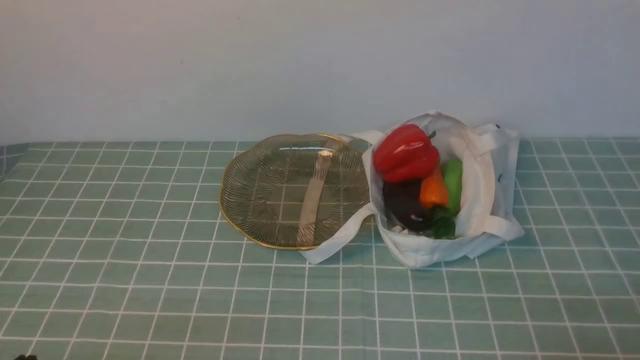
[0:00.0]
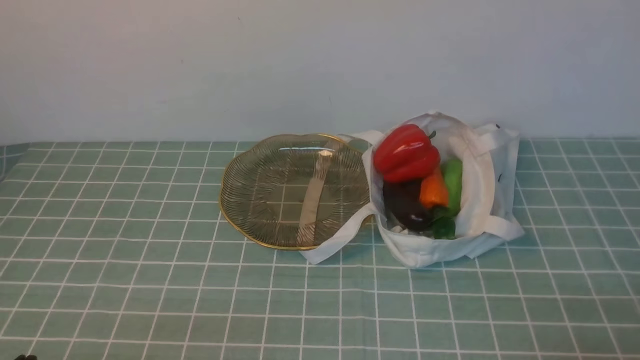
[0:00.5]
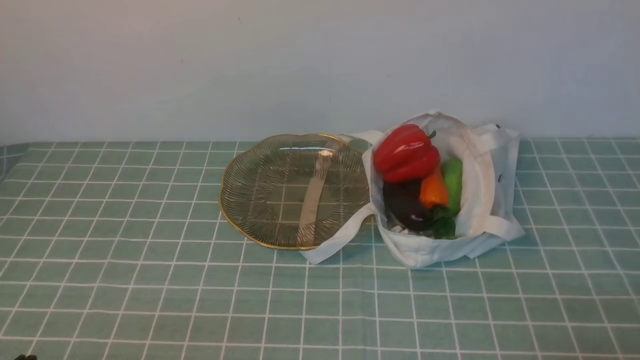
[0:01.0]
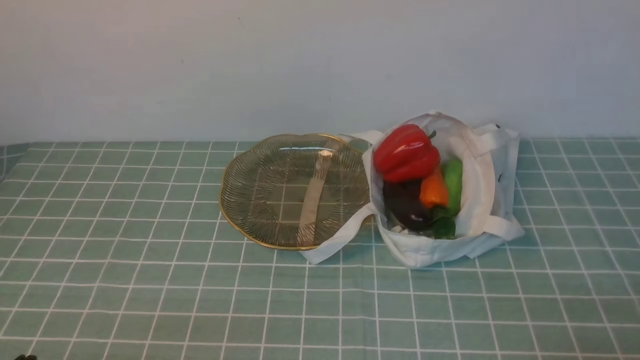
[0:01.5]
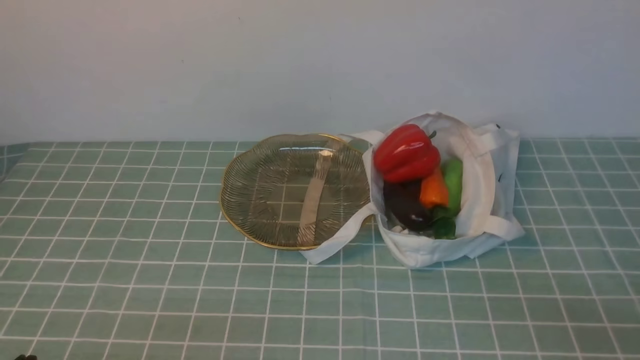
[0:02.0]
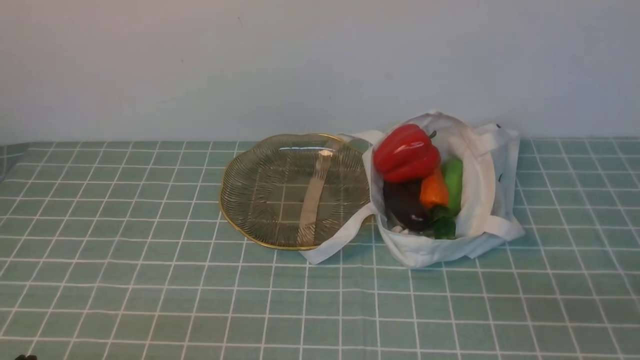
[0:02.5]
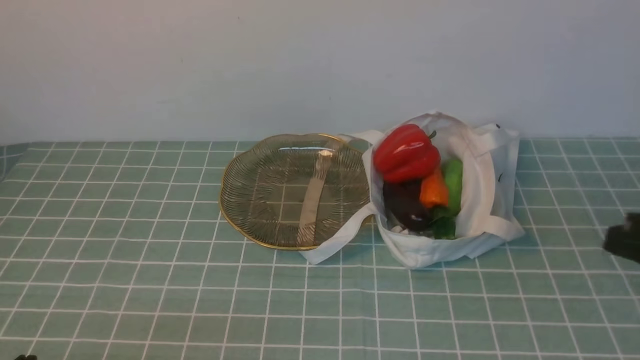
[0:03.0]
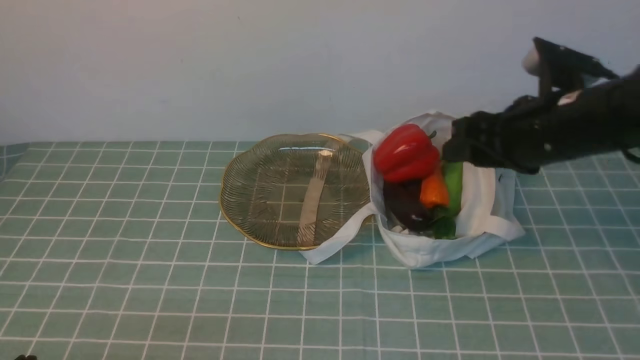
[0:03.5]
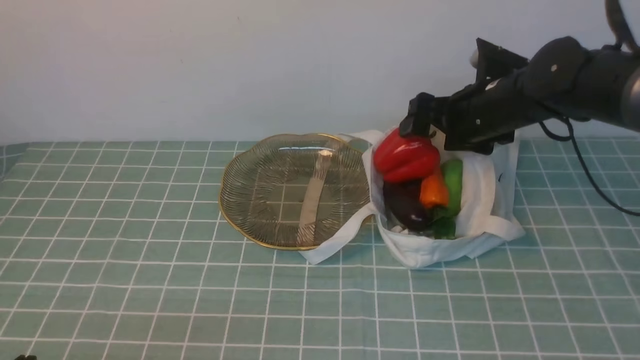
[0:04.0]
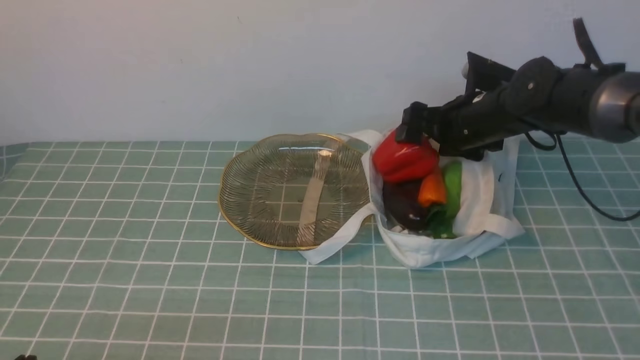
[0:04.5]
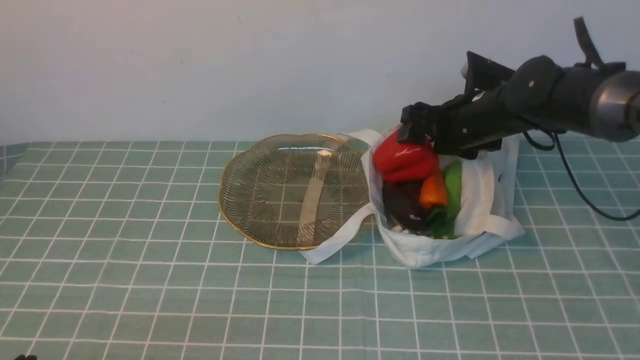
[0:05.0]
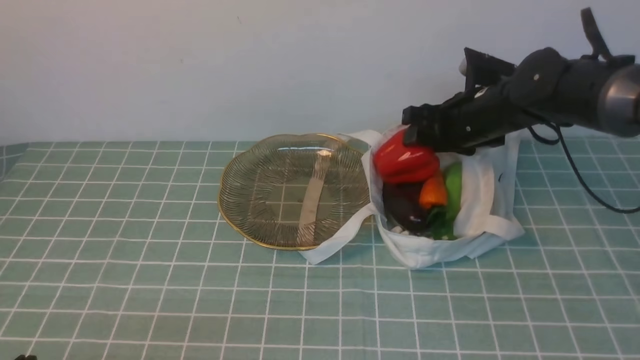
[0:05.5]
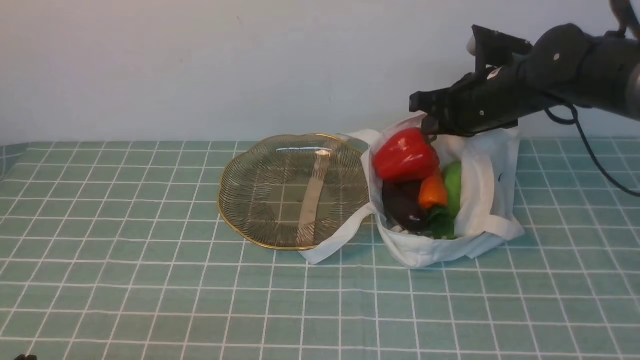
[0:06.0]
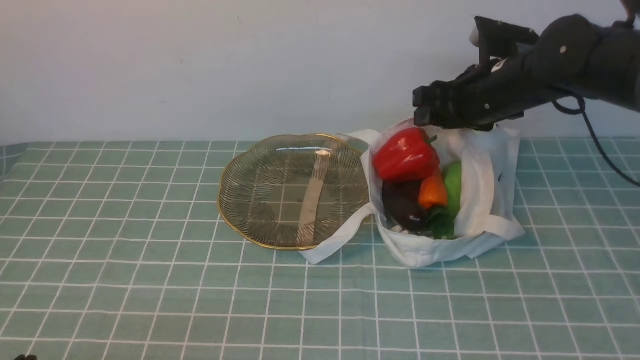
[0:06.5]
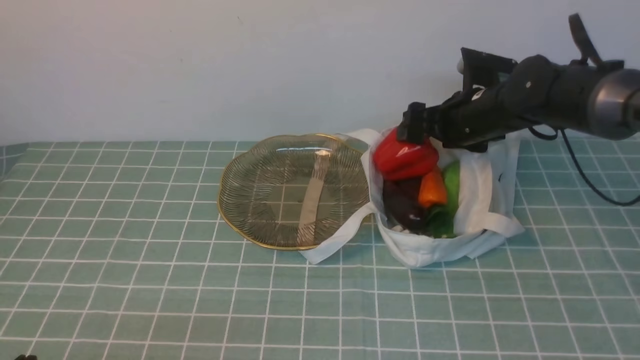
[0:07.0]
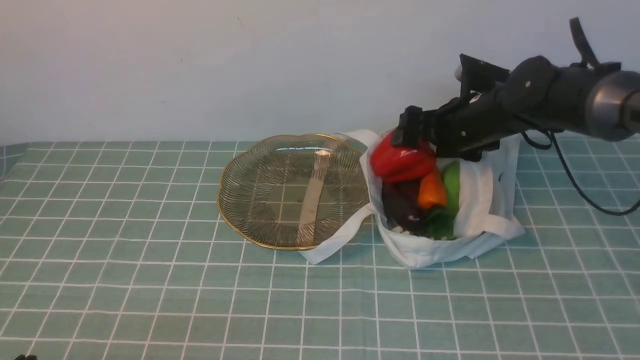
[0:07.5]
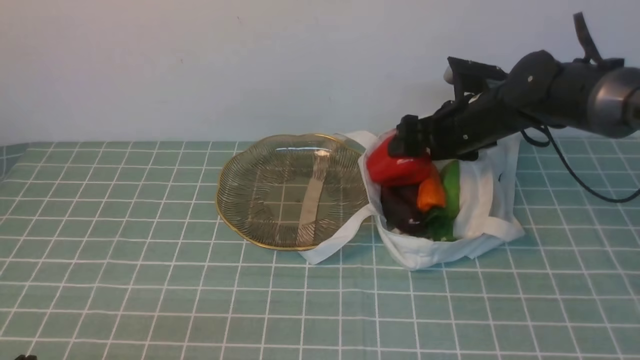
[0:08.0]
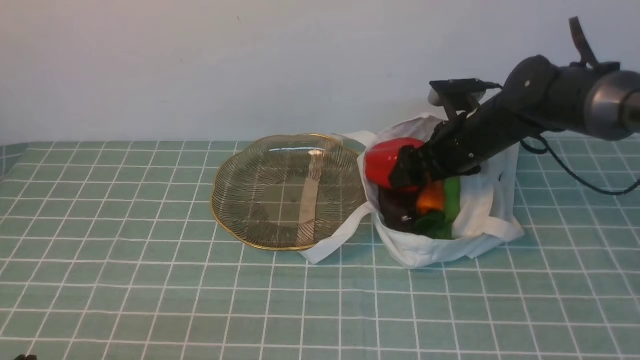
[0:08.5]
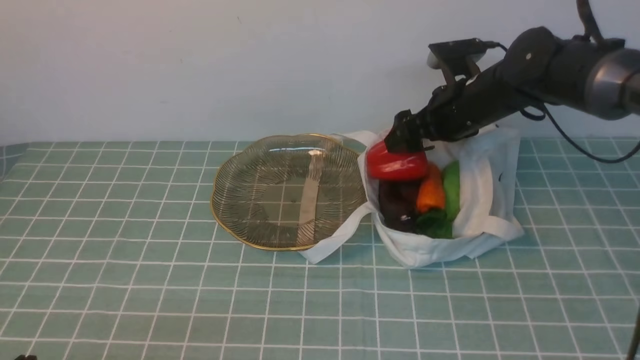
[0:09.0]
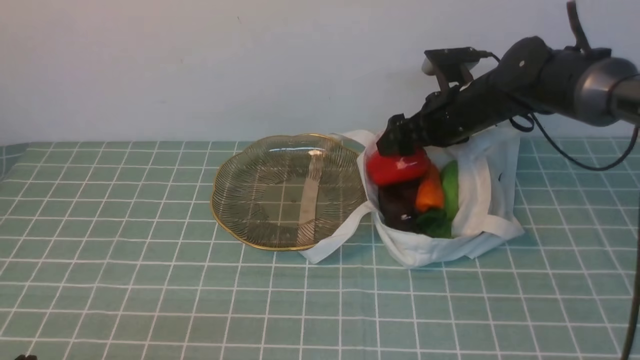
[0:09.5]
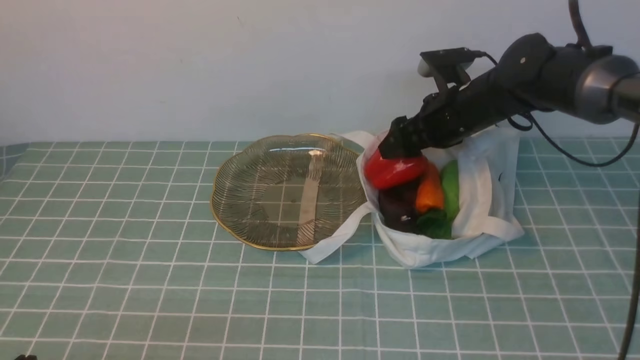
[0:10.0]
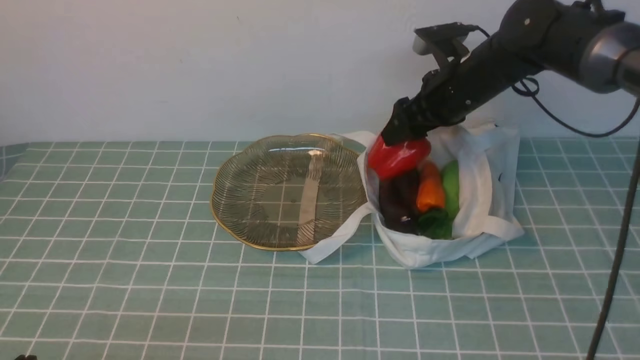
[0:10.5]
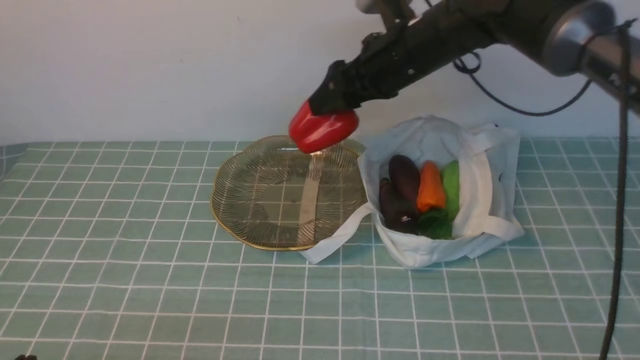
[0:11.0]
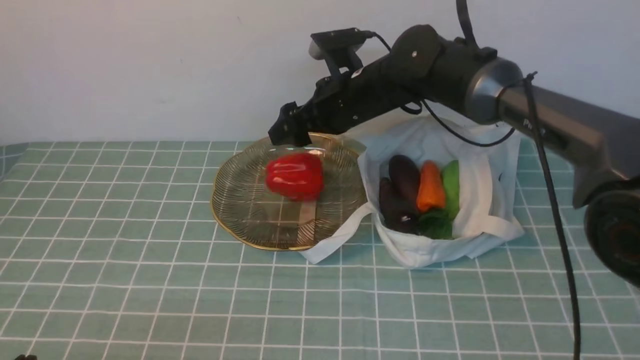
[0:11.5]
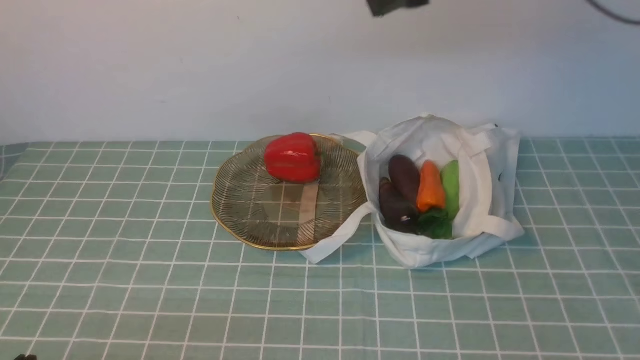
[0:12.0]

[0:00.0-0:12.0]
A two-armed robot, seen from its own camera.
Task of the whole recording: take vegetables from cloth bag on blue coffee tablecloth place on plate.
Step, 0:00.0 to 0:10.0: Grasp the bell pepper with right gripper.
Step, 0:10.5 to 0:11.5: Place the bell pepper on the plate with right gripper.
0:02.0 to 0:04.0: The right gripper moves forward, approximately 35 cm, and opens.
0:04.0 to 0:06.0: The right gripper closes its fingers.
0:06.0 to 0:08.0: The right gripper opens up.
0:10.0 to 0:12.0: The right gripper moves up and down over approximately 20 cm, changing direction 2 times.
